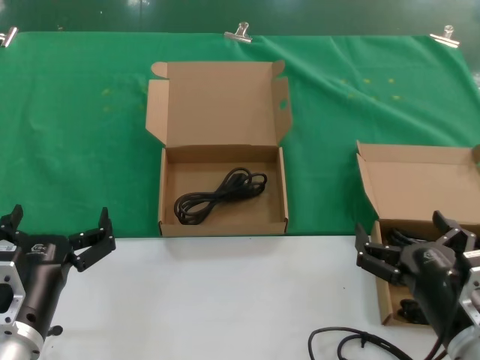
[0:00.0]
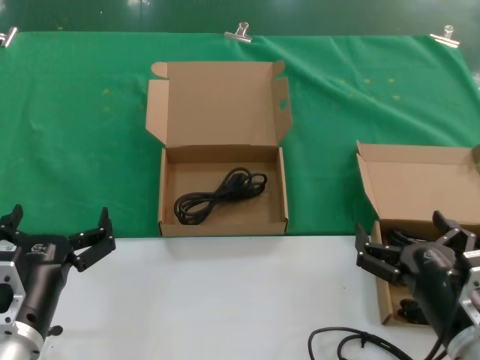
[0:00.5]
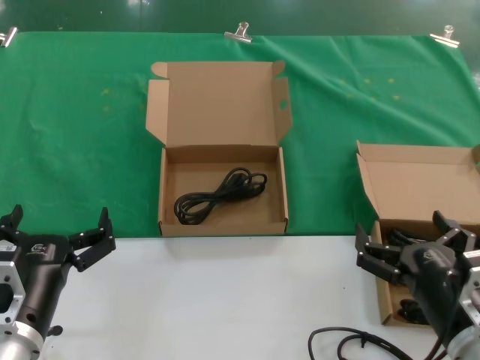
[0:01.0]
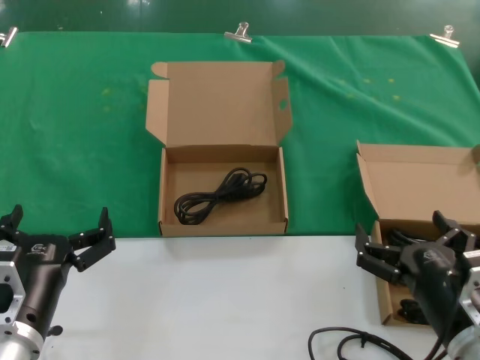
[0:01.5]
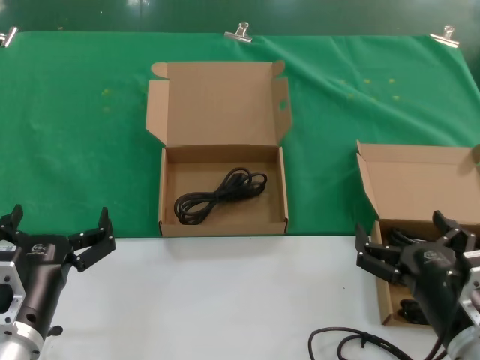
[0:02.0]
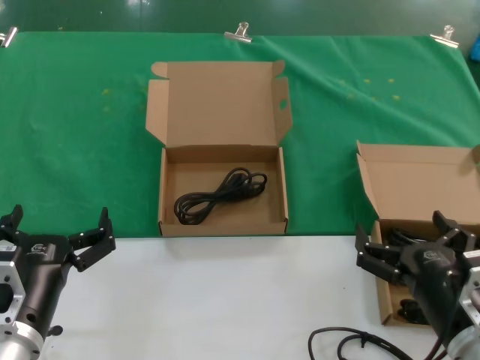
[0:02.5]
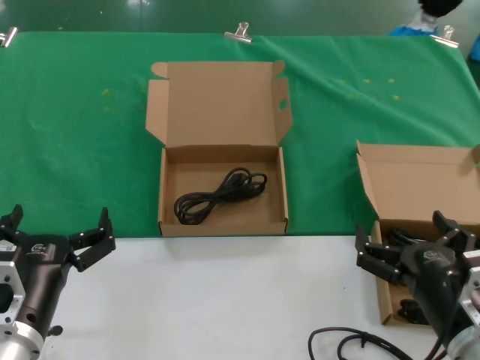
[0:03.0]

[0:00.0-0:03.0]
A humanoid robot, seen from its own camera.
Task of the whole recording: take the parts from the box containing them and put them into an empty box.
0.0 to 3.0 s: Both hands stay put.

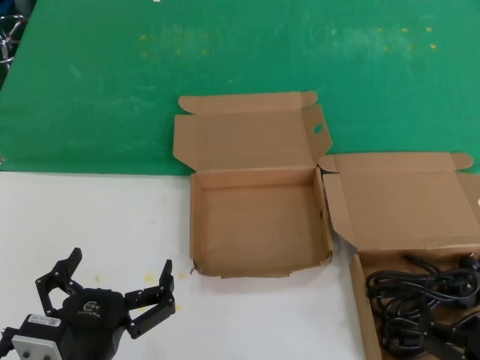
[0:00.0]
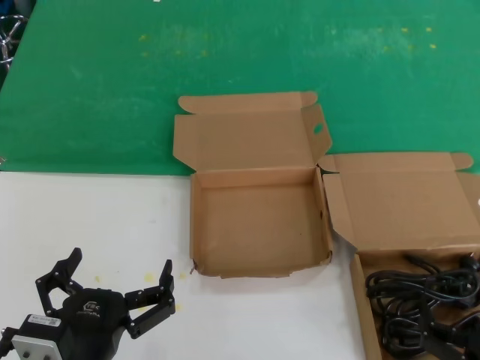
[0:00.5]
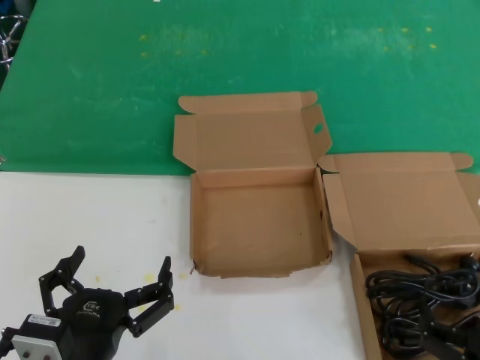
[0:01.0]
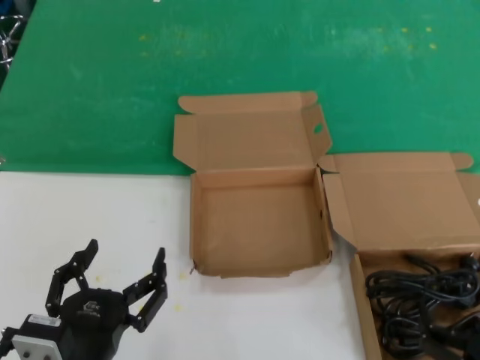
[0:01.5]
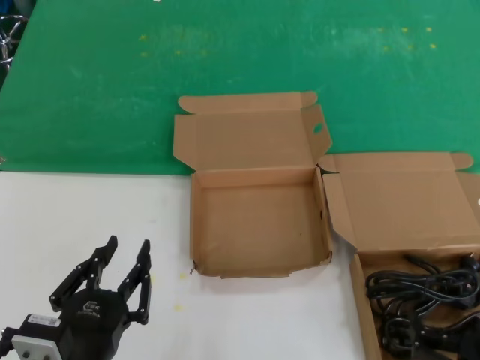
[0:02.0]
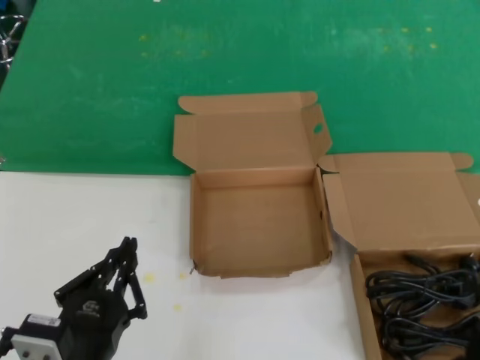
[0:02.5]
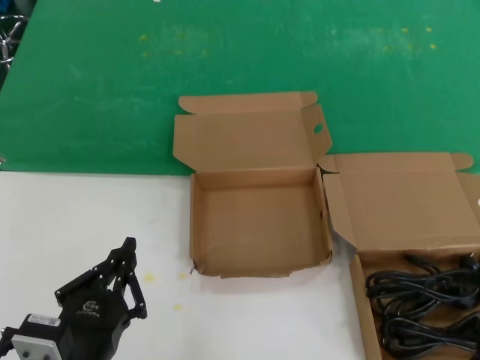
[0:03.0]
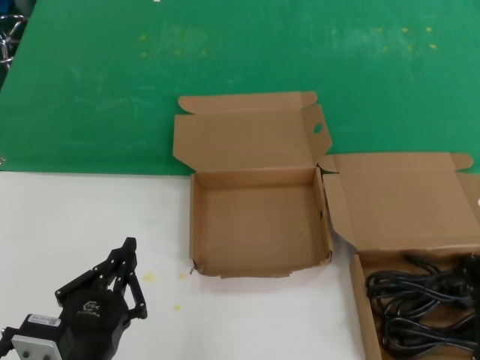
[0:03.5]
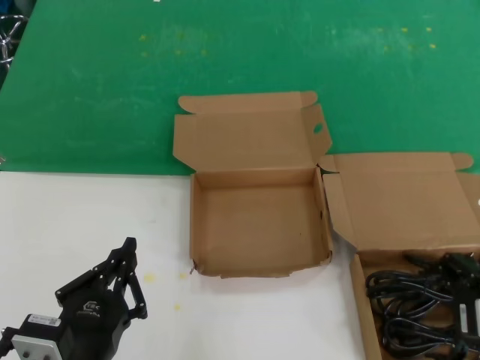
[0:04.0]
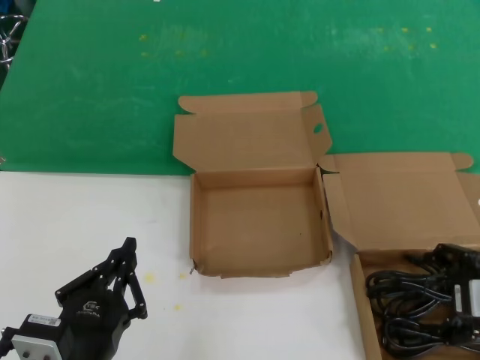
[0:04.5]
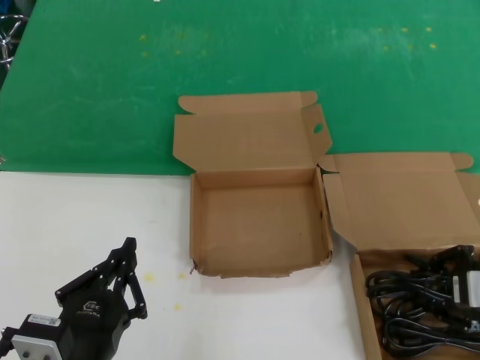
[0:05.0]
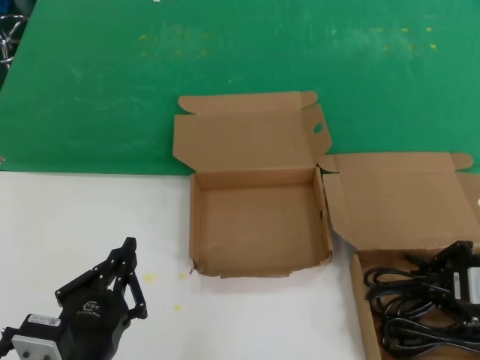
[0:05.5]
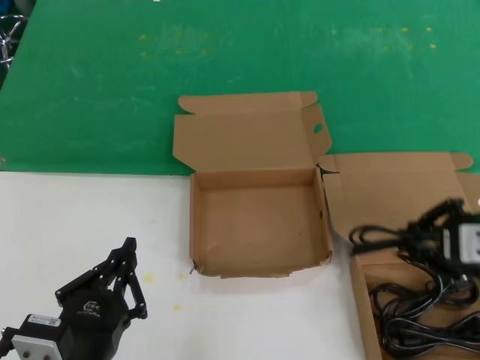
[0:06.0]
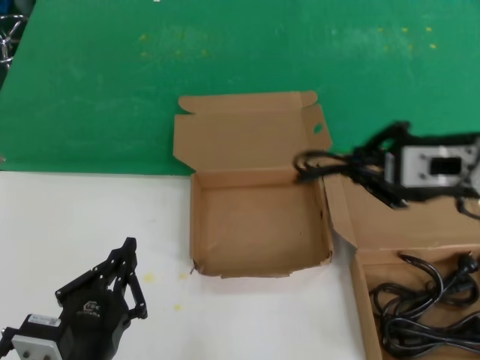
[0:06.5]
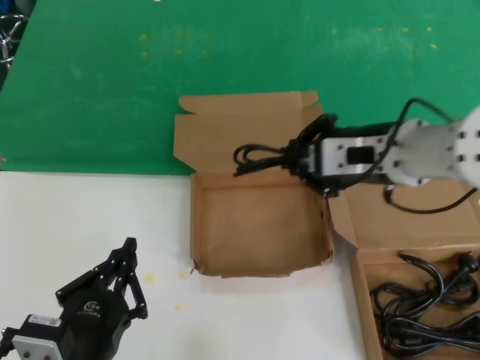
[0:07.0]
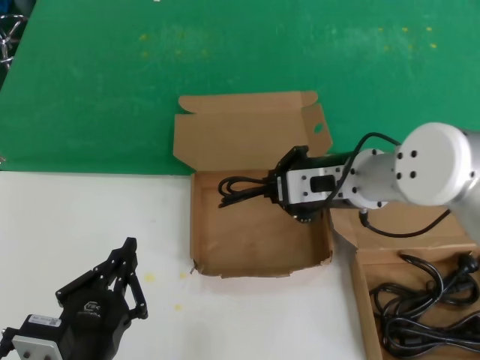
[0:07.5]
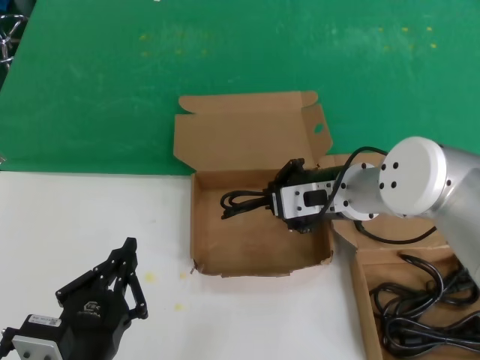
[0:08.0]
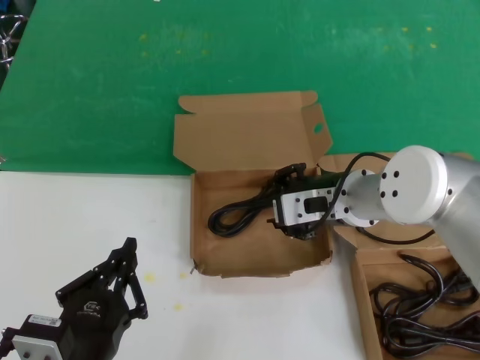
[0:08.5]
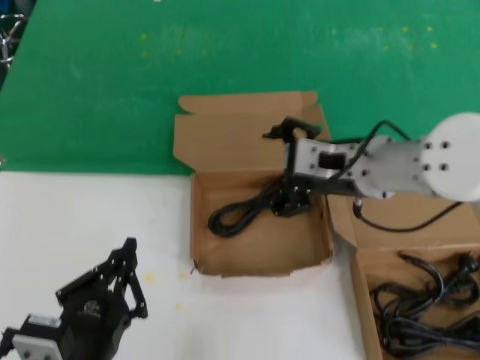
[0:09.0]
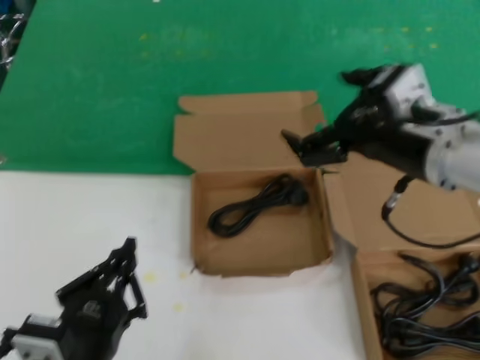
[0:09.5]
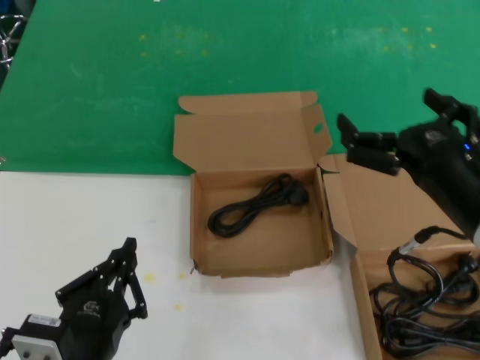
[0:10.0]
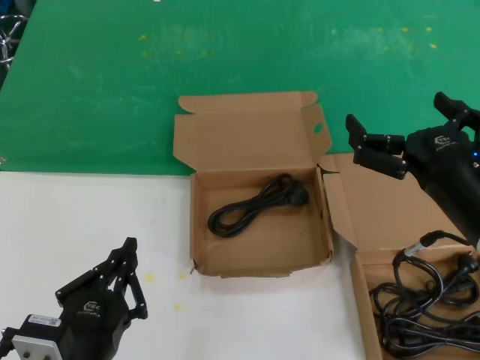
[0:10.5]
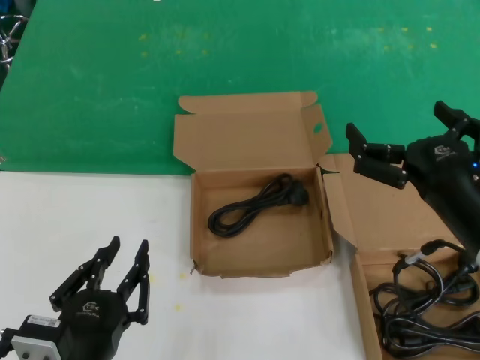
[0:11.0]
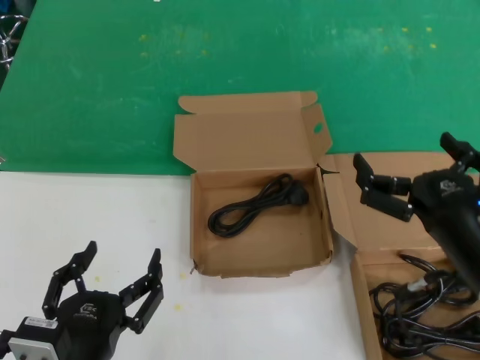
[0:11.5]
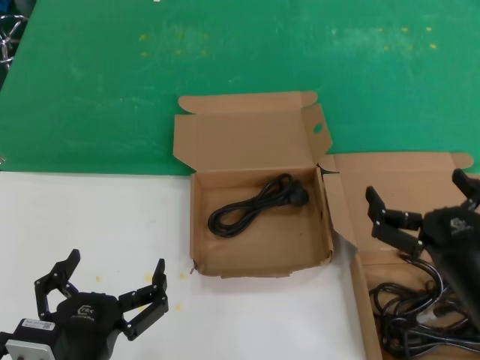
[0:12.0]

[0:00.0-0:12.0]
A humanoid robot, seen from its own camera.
Task of the whole recording: take the parts from the box containing them and put them into an empty box.
Step, 0.0 to 5.5 s: Grasp the data cable.
Step, 6.0 to 8.5 s: Place the data cable in the another box.
0.0 to 2.0 s: The two hands keep their place.
2.0 to 4.0 s: The right hand moves upward and forward, some 20 cm.
4.0 to 6.0 s: The right hand shifts roughly 5 cm upward.
6.0 to 8.0 s: The right hand is displaced to the left and forward by about 20 cm.
8.0 to 10.0 s: The right hand heads backward and to the right, covering approximately 20 cm.
10.0 to 12.0 s: The right hand heads downward, covering about 10 cm.

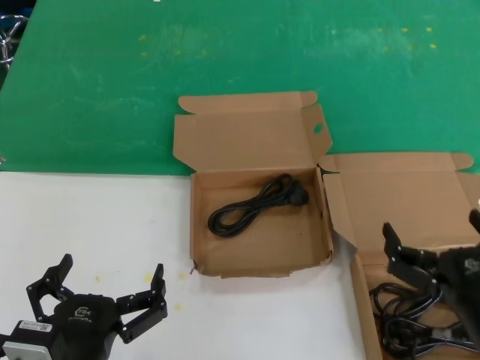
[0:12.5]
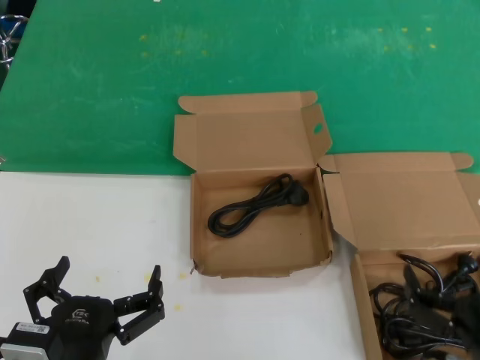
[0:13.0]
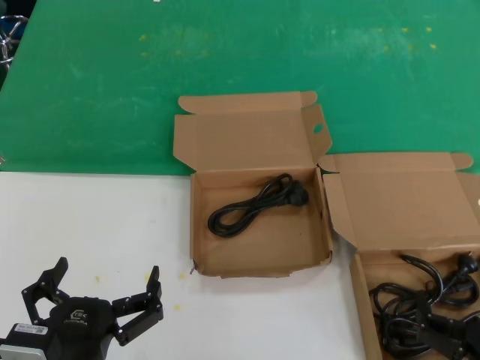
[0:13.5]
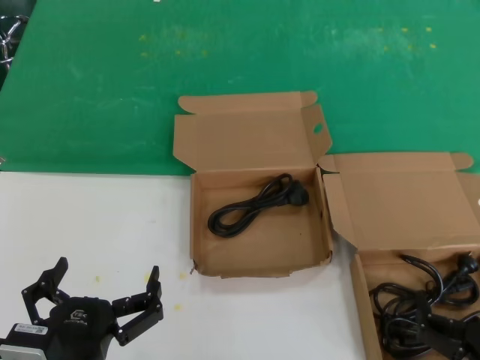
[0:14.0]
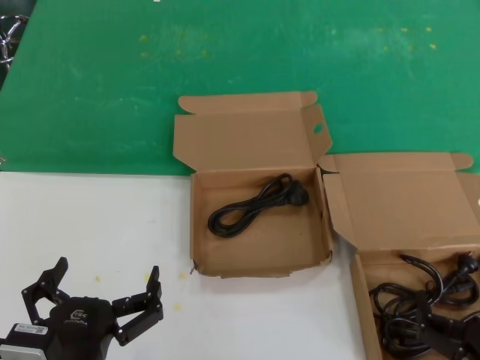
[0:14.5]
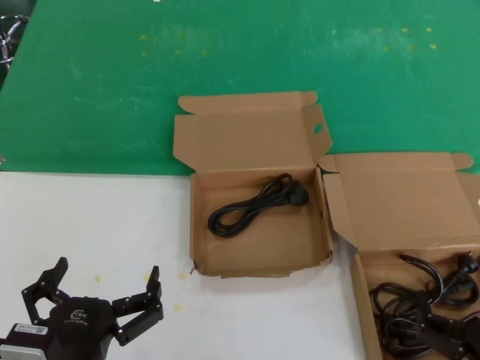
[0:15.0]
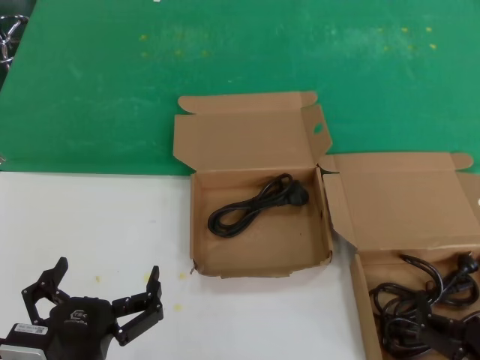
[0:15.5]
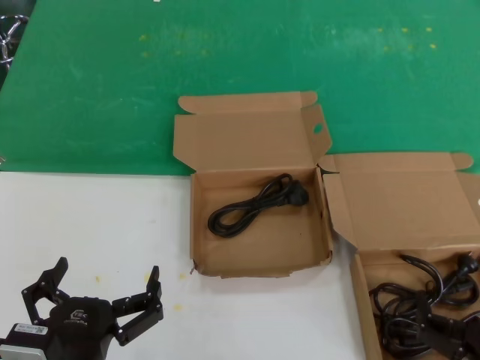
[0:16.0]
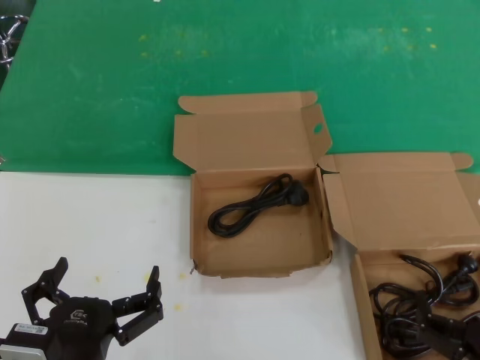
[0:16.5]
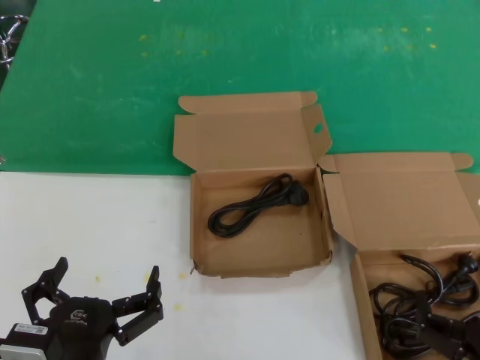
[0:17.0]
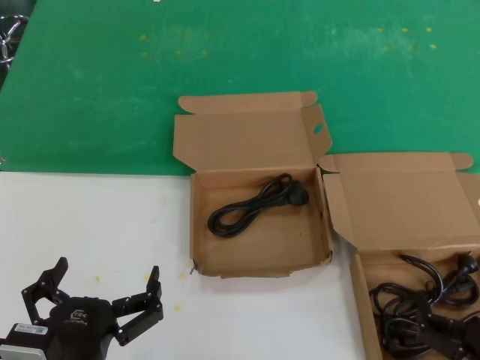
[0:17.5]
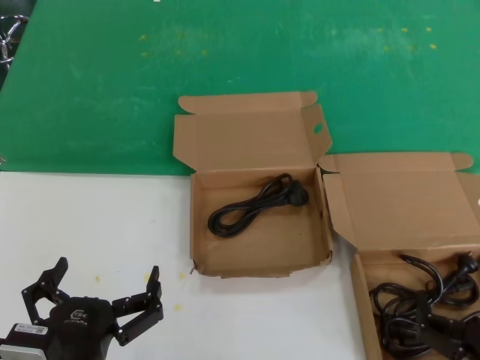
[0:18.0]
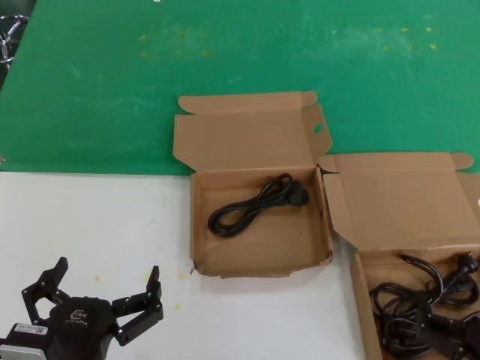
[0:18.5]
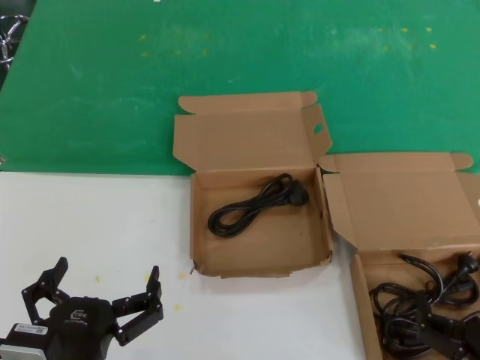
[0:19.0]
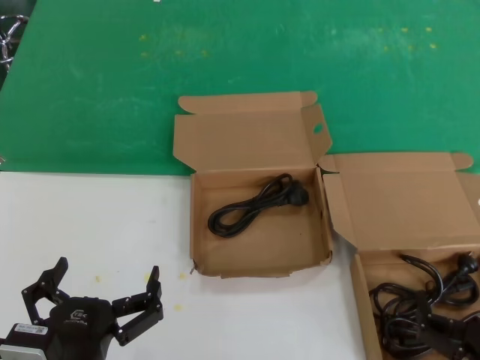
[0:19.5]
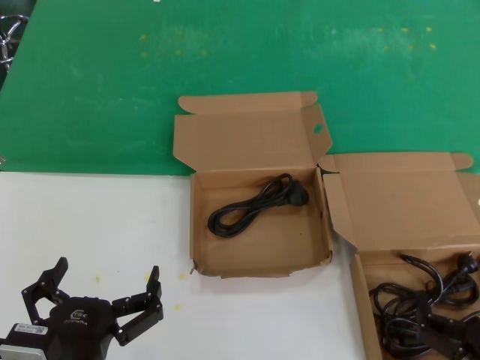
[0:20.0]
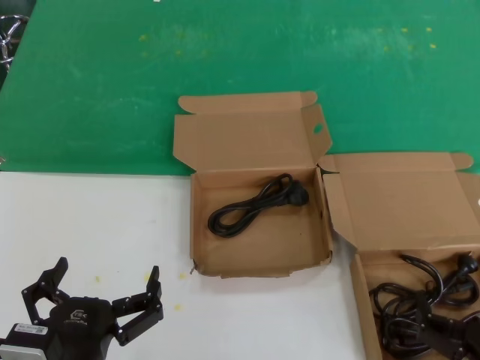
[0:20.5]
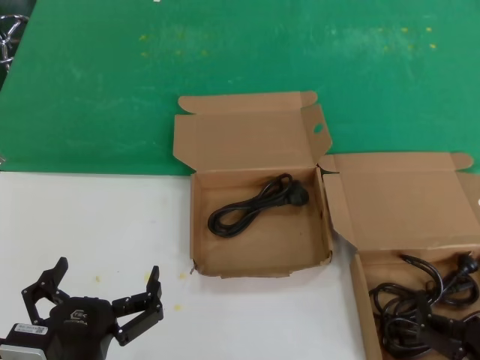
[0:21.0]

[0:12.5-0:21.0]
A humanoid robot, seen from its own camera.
Task of the whole recording: take the parts from the box containing them and put them into an empty box.
12.5 to 14.5 s: The right hand goes some 5 cm downward.
14.5 to 21.0 s: Neither hand changes place.

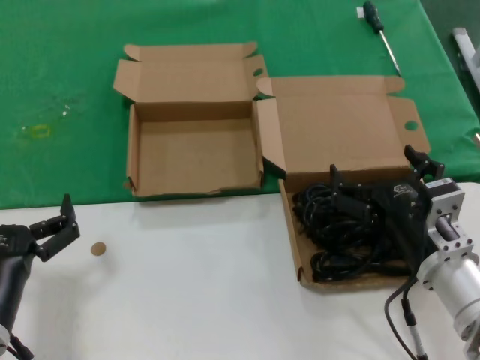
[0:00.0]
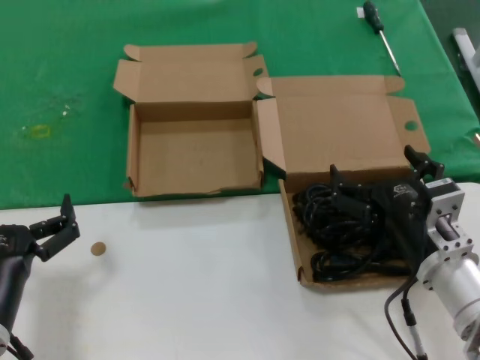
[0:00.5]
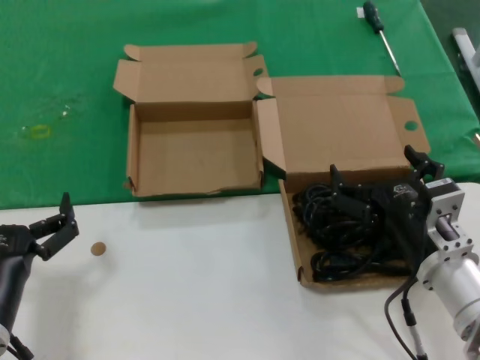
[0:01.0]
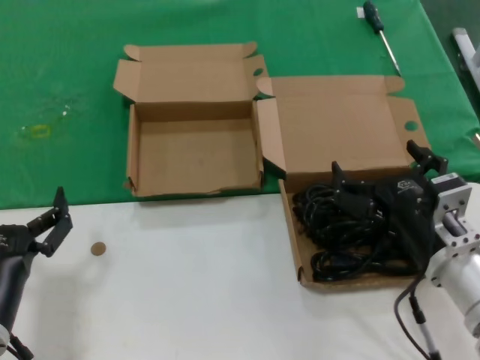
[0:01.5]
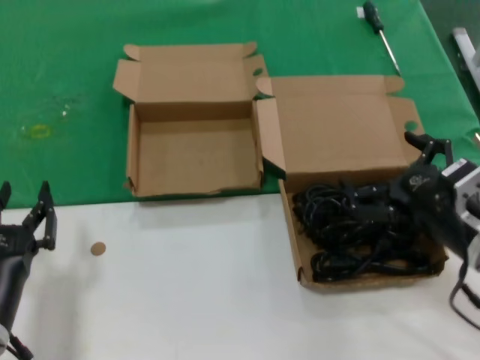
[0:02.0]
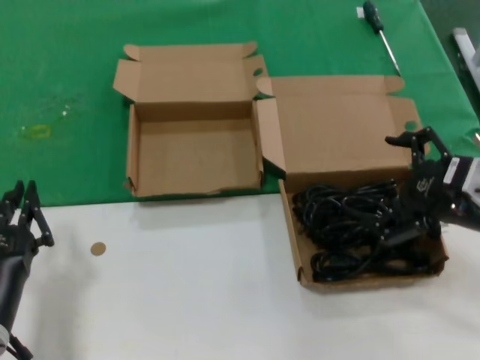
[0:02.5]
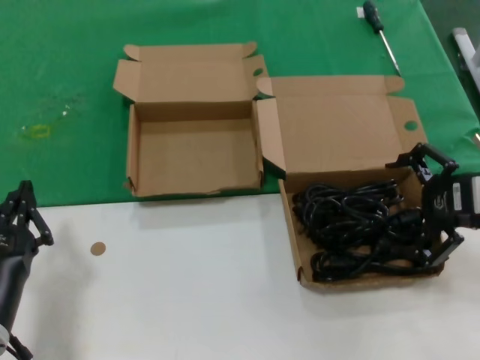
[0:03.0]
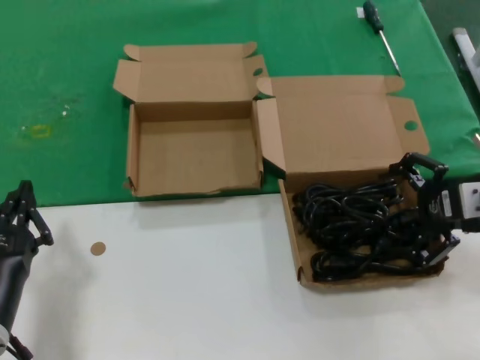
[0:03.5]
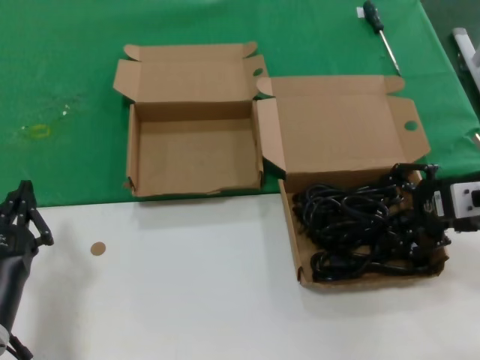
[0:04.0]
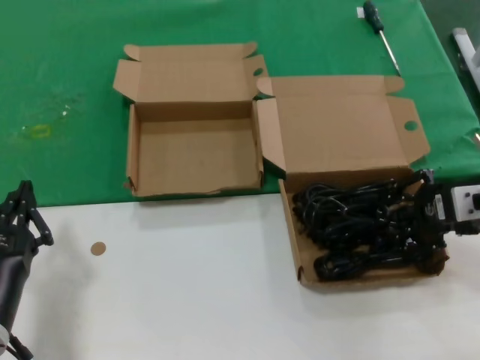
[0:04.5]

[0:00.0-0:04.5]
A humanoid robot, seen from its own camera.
Task of the whole recording: take the parts from the box containing them and put them into an empty box.
Step, 0.0 to 4.5 s: Grasp the data cable.
0.0 to 2.0 s: The right hand moves to the right, about 5 cm.
2.0 to 4.5 s: The right hand heads upward, forward and to the right, covering some 15 cm.
